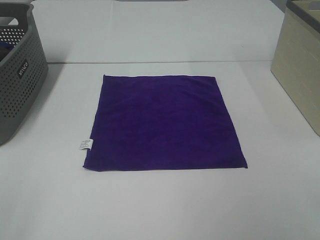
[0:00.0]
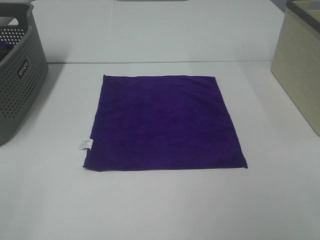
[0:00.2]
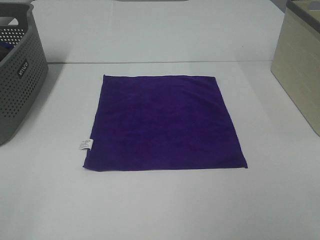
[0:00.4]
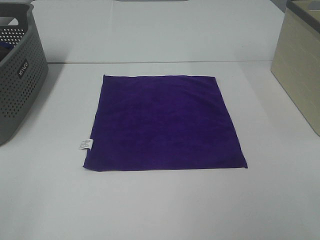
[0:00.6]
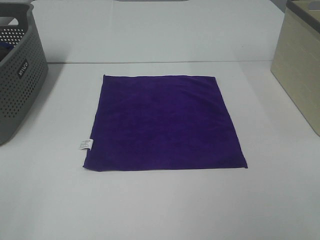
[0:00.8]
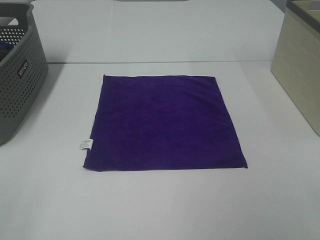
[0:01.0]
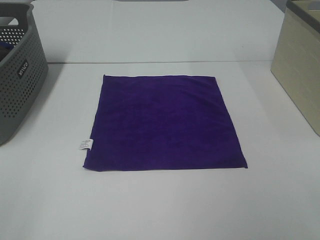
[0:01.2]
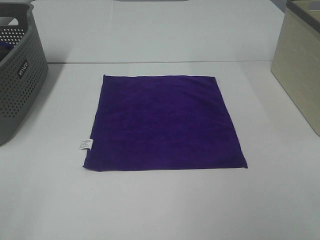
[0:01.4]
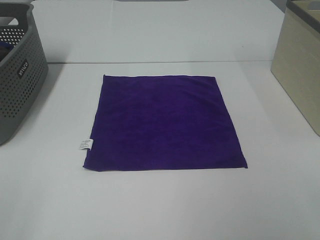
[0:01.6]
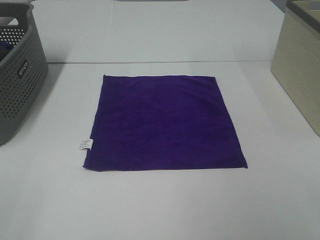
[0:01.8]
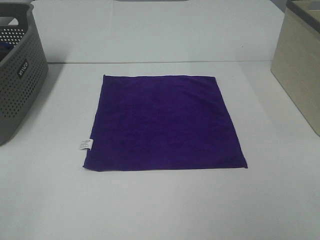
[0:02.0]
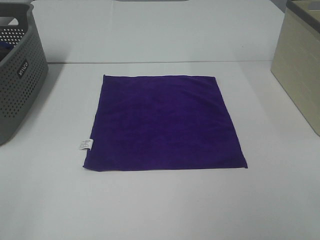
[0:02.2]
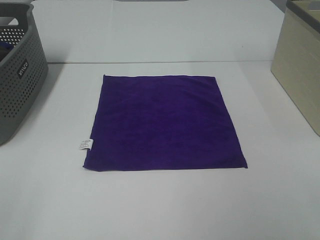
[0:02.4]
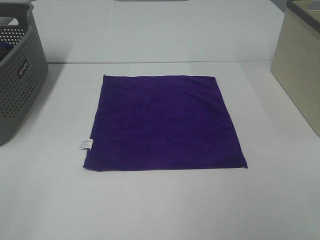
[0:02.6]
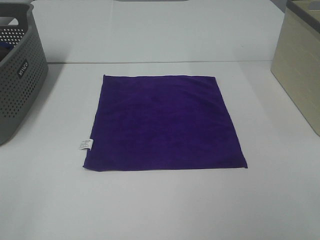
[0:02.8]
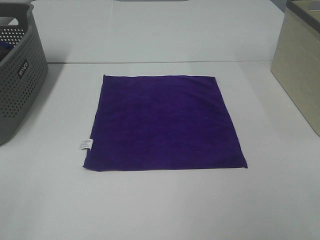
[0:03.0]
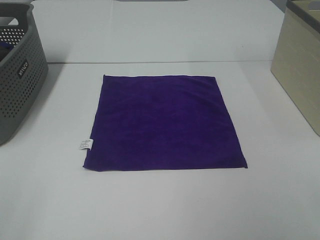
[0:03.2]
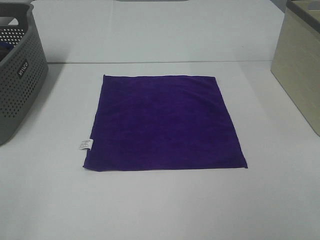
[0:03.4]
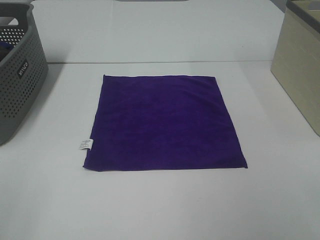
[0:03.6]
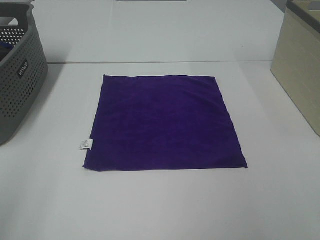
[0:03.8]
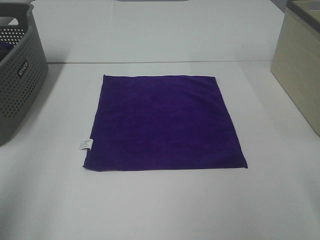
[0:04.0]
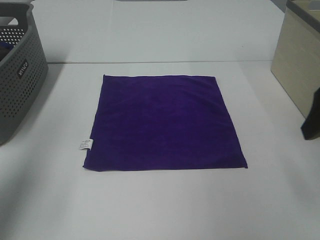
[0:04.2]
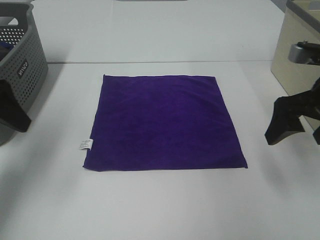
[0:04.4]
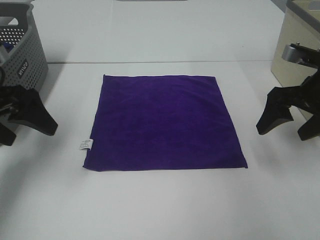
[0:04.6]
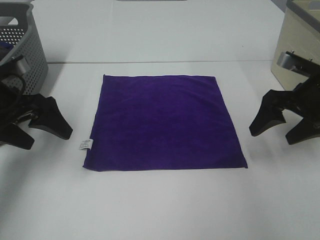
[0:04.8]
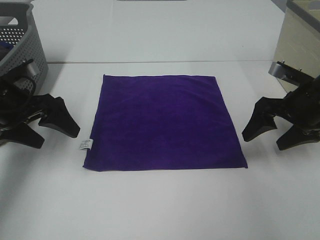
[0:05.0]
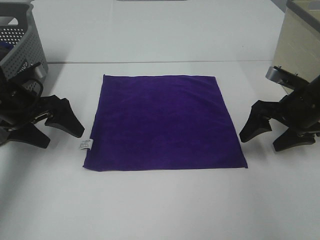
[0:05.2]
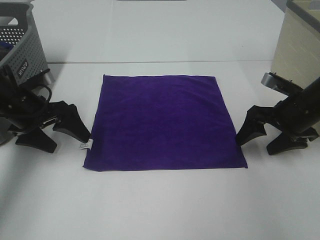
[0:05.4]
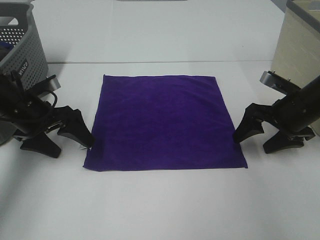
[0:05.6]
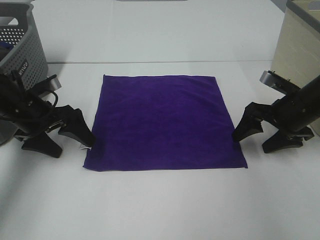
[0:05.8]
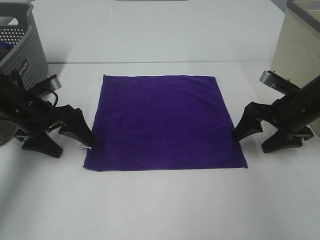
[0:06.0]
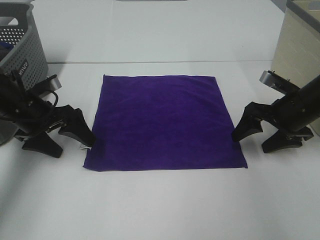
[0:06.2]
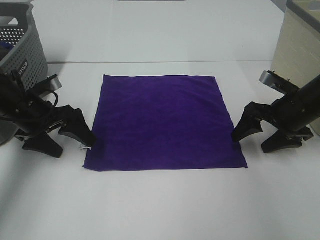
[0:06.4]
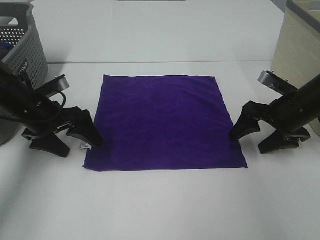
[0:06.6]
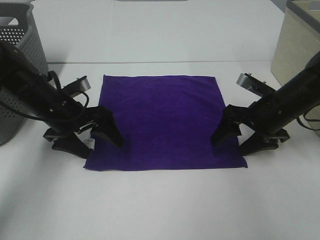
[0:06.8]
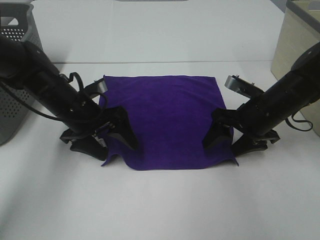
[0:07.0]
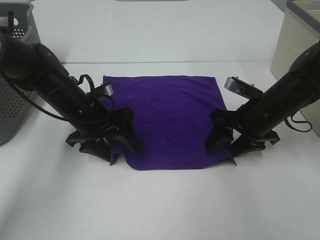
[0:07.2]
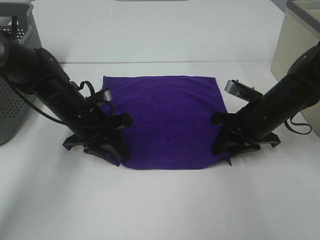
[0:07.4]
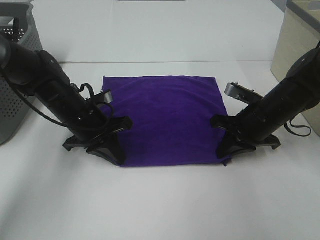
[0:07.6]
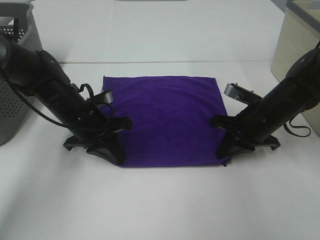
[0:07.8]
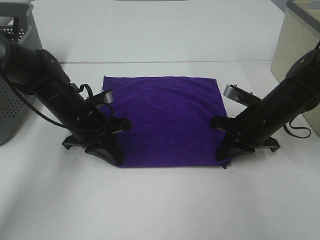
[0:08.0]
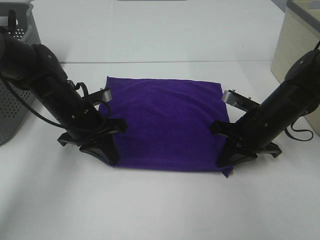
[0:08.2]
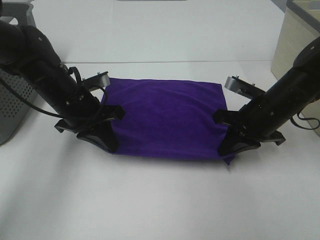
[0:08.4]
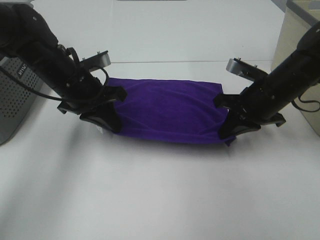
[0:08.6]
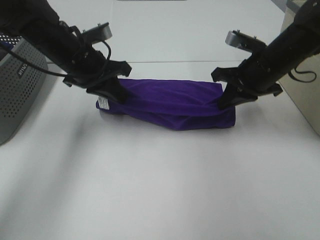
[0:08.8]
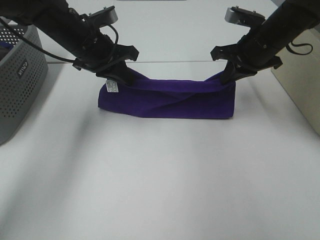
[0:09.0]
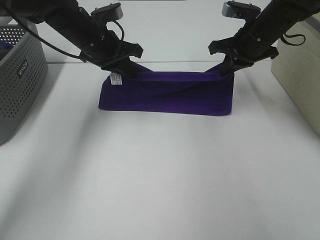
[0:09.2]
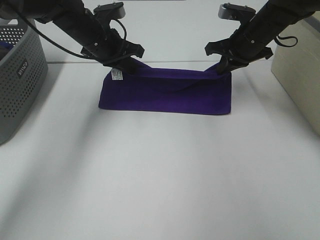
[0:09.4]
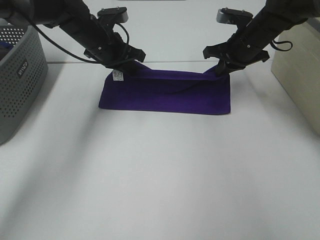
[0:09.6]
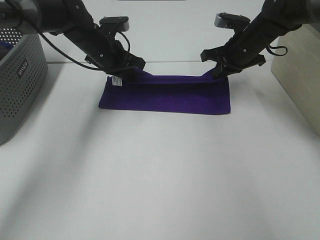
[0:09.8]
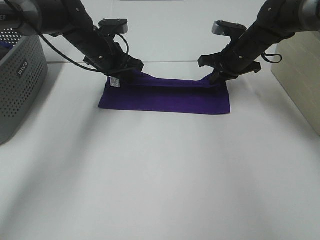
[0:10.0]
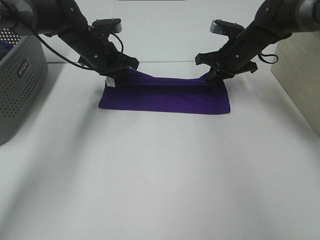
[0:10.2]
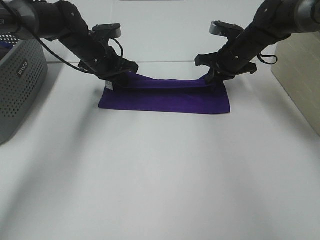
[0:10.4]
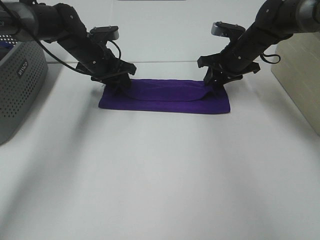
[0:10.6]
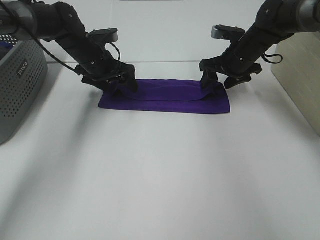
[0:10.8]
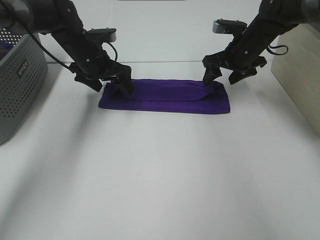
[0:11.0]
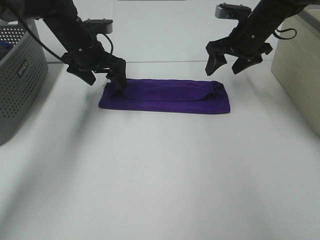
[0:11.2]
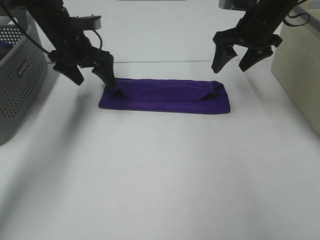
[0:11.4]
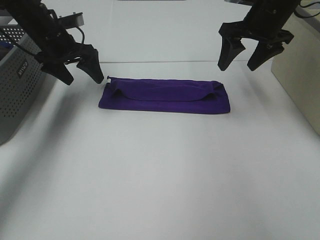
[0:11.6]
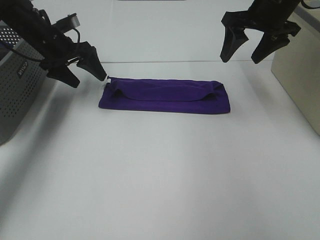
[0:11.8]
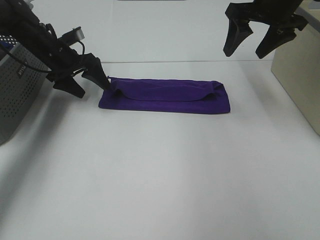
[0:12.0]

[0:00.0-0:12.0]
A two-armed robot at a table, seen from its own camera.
Task of the whole recording: Fold towels.
Step, 0:00.0 to 0:08.0: Left hand: grab the bottom left corner of purple towel.
Step, 0:00.0 to 0:08.0: Right hand: grab the bottom right corner of purple towel.
Step, 0:08.2 to 0:10.4: Left hand: fold the purple towel up.
Step, 0:08.2 to 0:10.4: Right hand: fold the purple towel up.
0:00.0 to 0:03.0: The two grippers keep their place.
0:03.0 to 0:04.4: The two grippers go some 25 cm forward.
0:04.4 to 0:06.0: Both grippers move downward and forward, about 15 cm.
0:06.0 to 0:07.6: The right gripper is displaced to the left by some 5 cm, and closes up. The left gripper travels to the right by approximately 10 cm, and closes its fingers.
0:07.6 to 0:09.0: The two grippers go some 15 cm upward and forward.
0:09.0 to 0:10.4: The grippers both shift forward and downward by about 10 cm.
0:10.4 to 0:12.0: The right gripper shifts approximately 15 cm upward and backward, and opens. The left gripper shifts some 10 cm to the left, and opens.

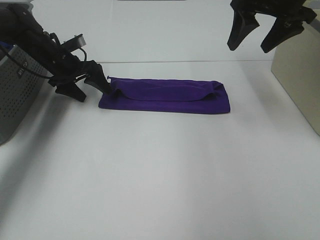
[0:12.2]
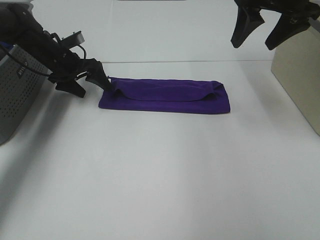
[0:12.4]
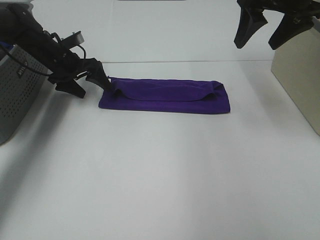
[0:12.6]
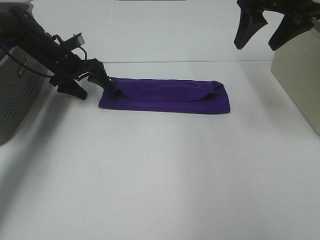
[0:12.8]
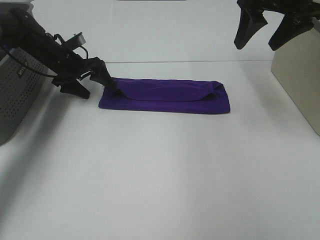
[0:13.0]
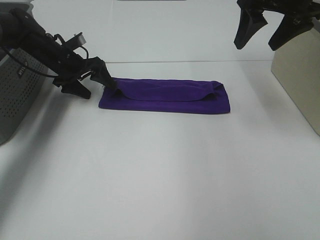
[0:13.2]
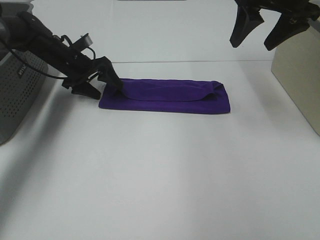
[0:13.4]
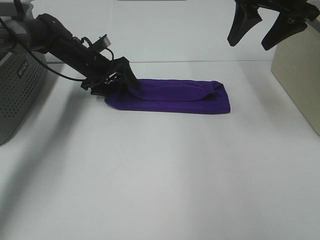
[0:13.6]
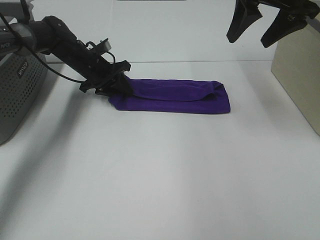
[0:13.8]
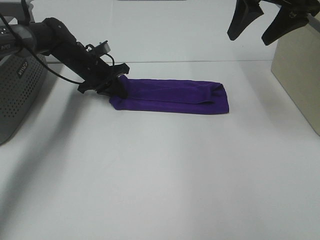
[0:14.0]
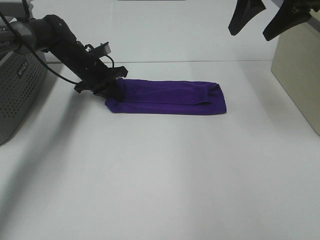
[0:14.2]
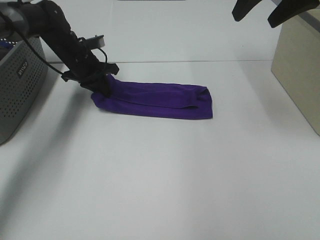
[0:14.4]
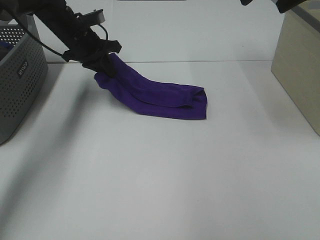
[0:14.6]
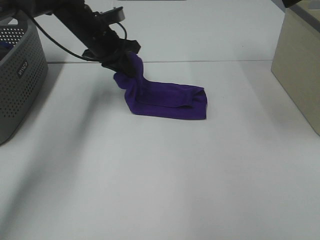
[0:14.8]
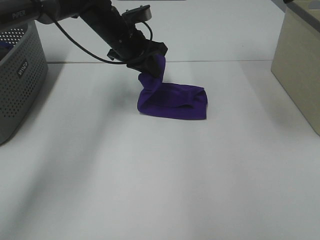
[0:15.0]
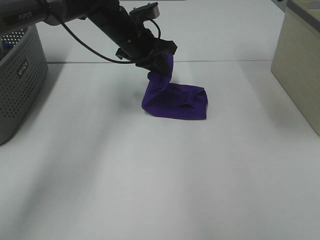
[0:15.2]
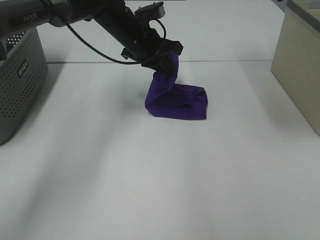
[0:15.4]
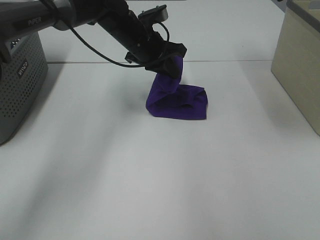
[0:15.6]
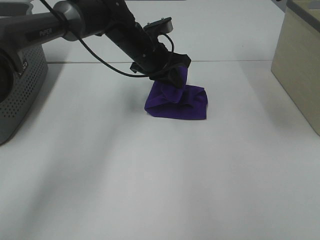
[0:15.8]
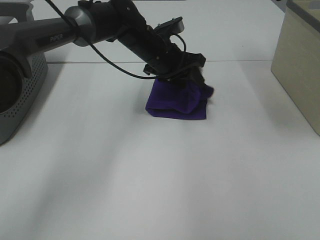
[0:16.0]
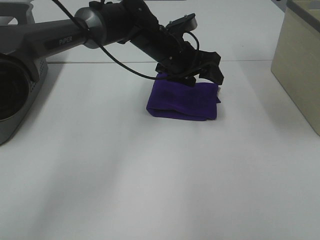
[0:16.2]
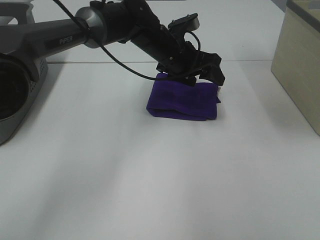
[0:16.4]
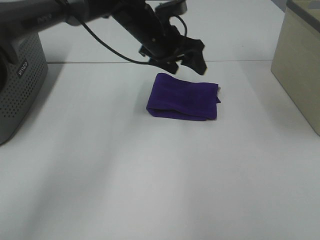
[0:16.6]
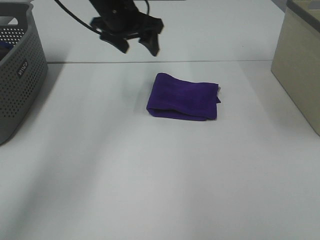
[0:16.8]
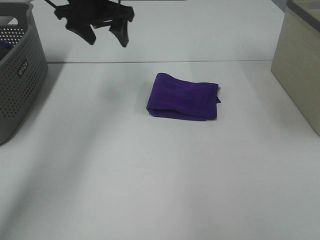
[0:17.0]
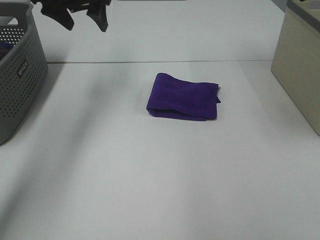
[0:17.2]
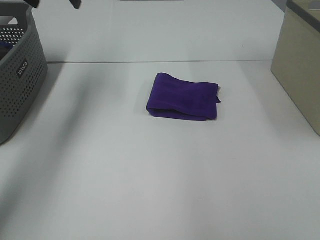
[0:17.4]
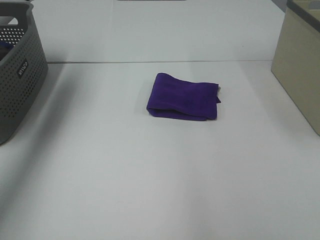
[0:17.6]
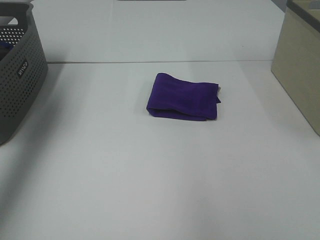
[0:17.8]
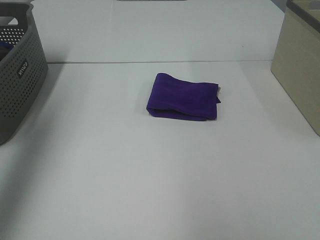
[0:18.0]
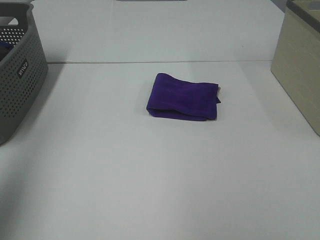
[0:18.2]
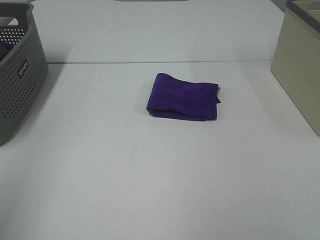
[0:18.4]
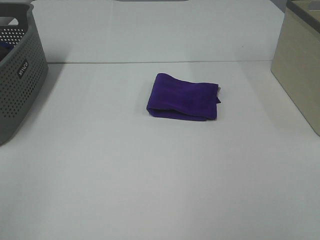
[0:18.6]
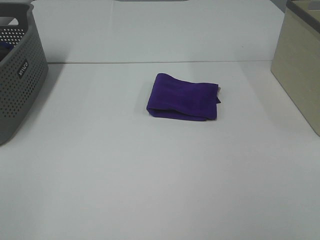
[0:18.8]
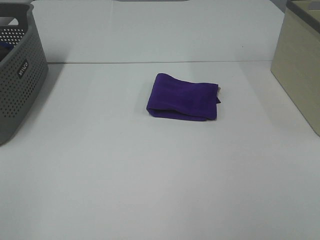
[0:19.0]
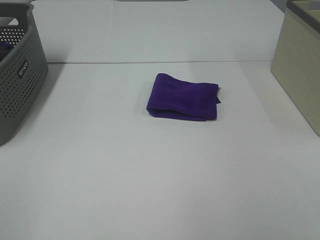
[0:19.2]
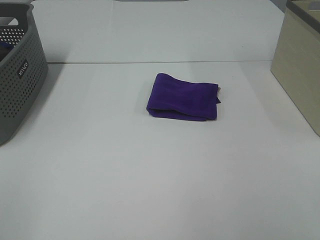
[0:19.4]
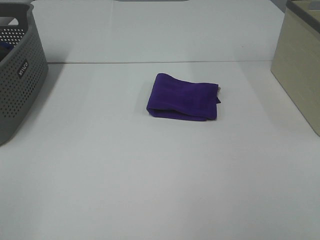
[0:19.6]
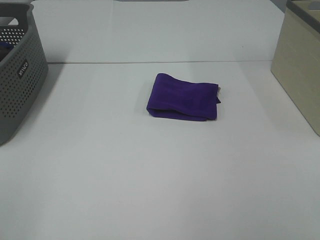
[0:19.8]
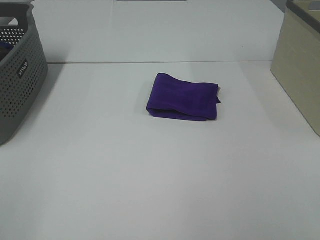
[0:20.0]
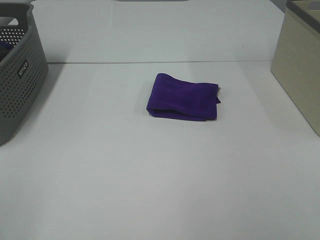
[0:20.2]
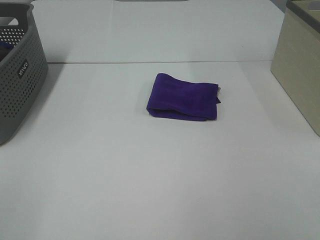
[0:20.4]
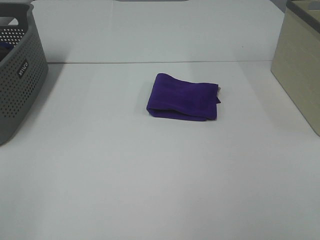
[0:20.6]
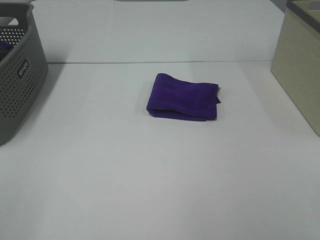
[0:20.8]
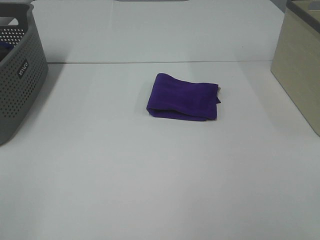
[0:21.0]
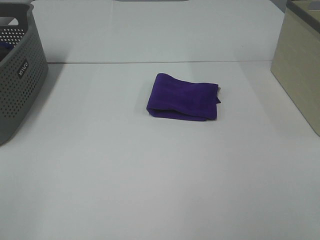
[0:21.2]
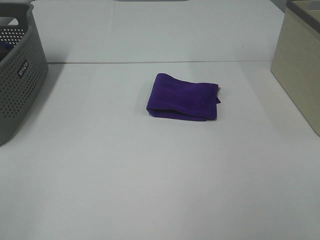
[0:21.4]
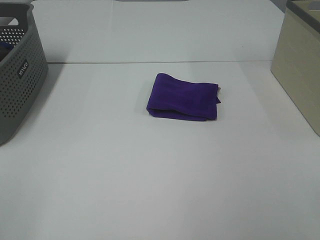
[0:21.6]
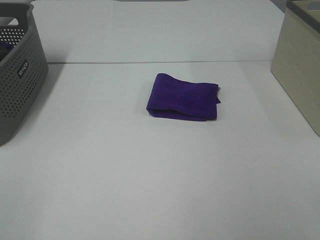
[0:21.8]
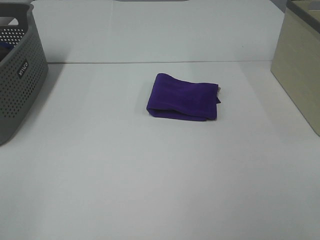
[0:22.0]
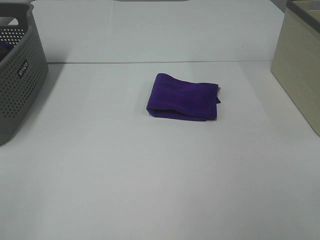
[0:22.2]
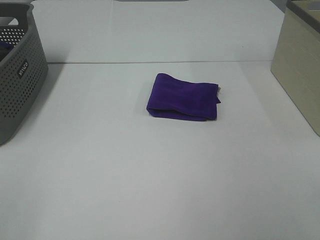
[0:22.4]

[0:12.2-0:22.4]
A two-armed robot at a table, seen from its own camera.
Task of the whole recording: Fold towels.
Step, 0:12.2 to 0:15.8: Left hand: fold the purple towel from left to right.
0:12.2 to 0:13.6: The left gripper is displaced to the right by roughly 5 cm.
0:13.6 to 0:15.2: The left gripper goes about 15 cm to the right and upward, and closes its fingers. Meanwhile the right gripper is displaced upward and backward by roughly 10 cm.
0:15.2 to 0:16.6: The left gripper opens up.
0:16.6 to 0:18.0: The left gripper goes about 40 cm to the left, backward and upward. The right gripper shifts some 20 cm backward.
0:18.0 to 0:19.4: The left gripper is displaced backward and downward by some 30 cm.
0:19.4 to 0:22.4: The two grippers keep their place.
